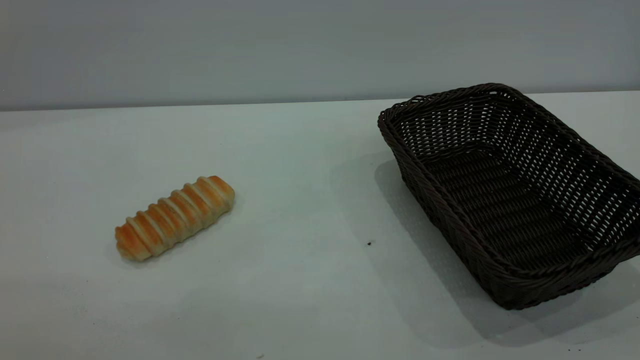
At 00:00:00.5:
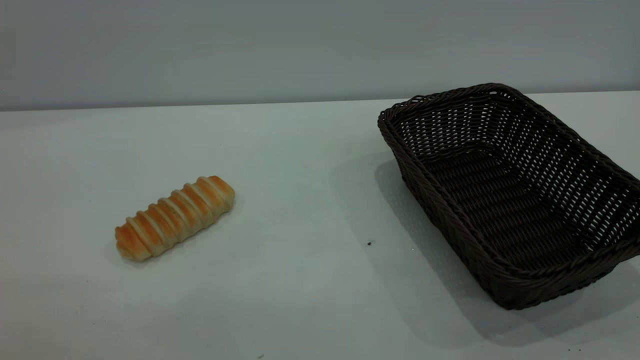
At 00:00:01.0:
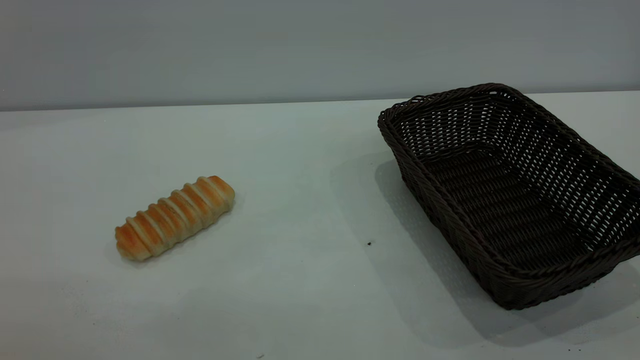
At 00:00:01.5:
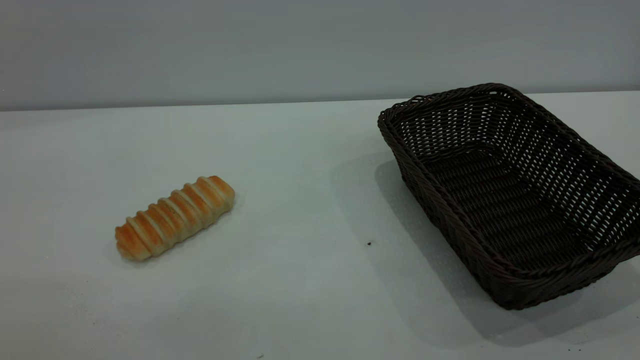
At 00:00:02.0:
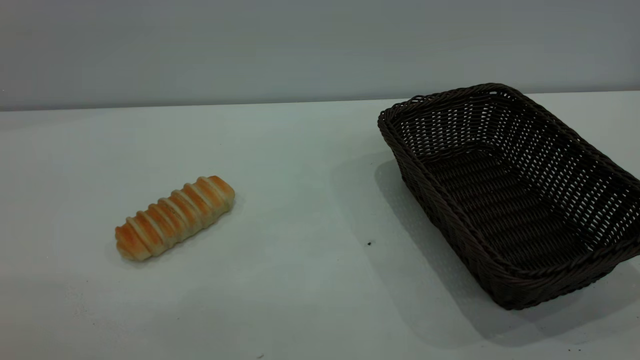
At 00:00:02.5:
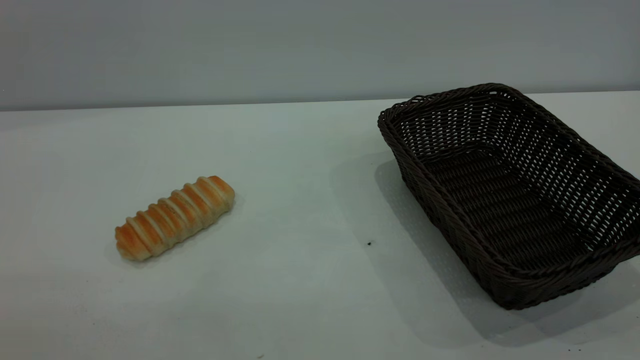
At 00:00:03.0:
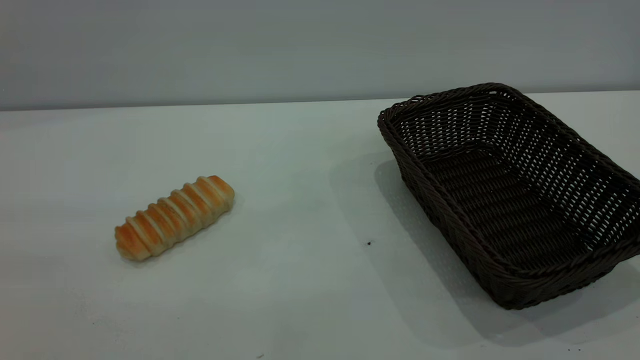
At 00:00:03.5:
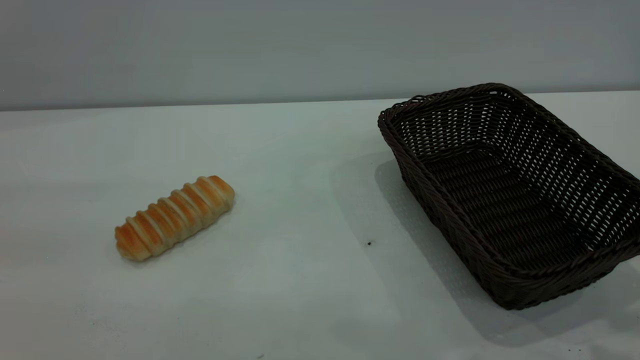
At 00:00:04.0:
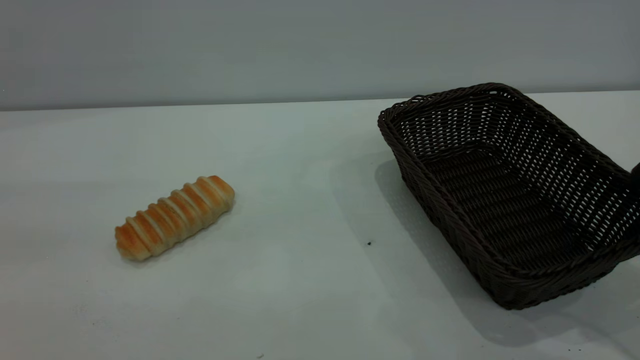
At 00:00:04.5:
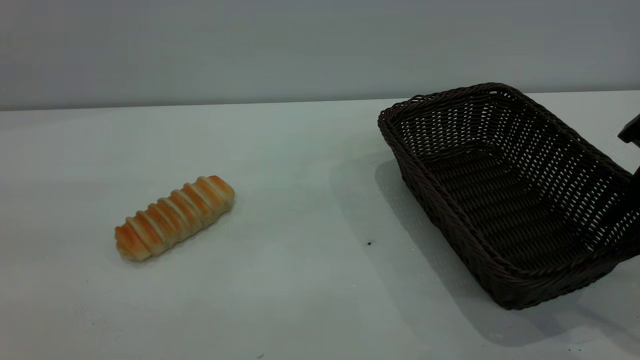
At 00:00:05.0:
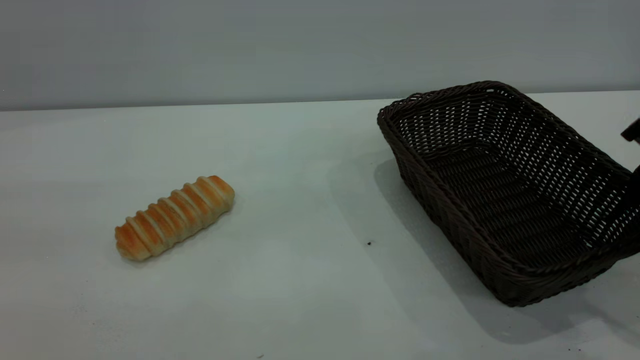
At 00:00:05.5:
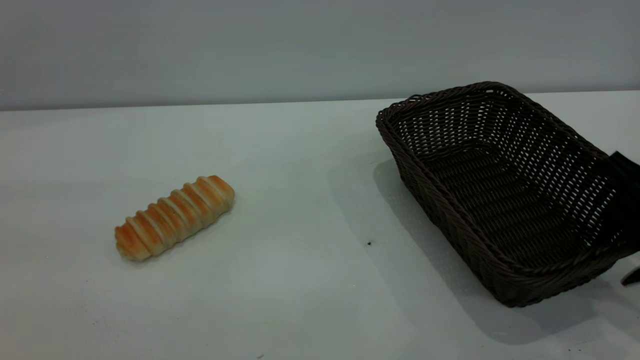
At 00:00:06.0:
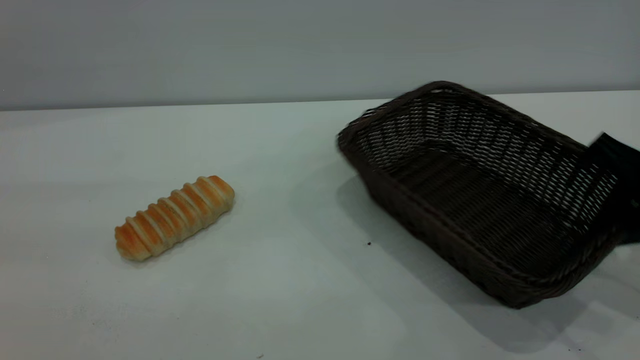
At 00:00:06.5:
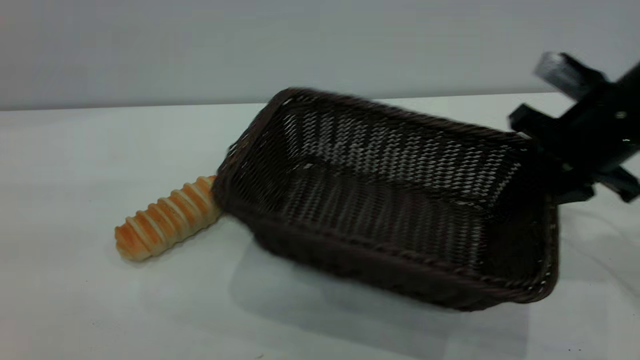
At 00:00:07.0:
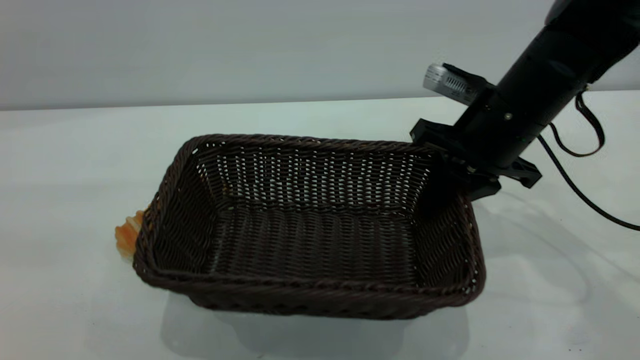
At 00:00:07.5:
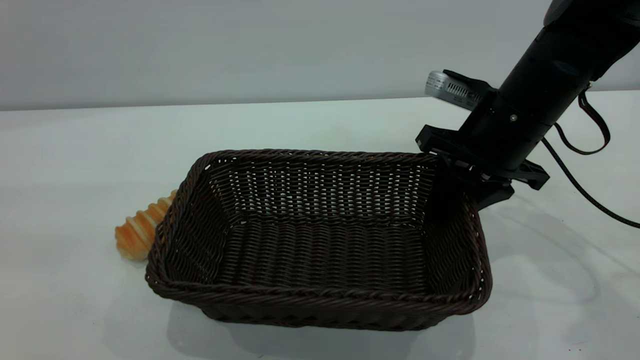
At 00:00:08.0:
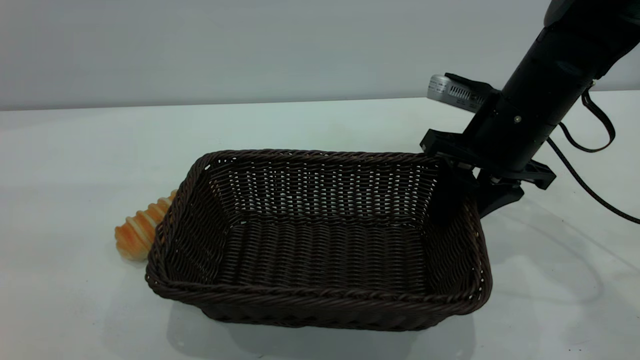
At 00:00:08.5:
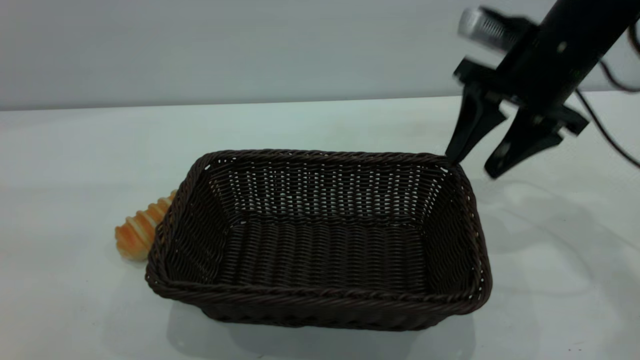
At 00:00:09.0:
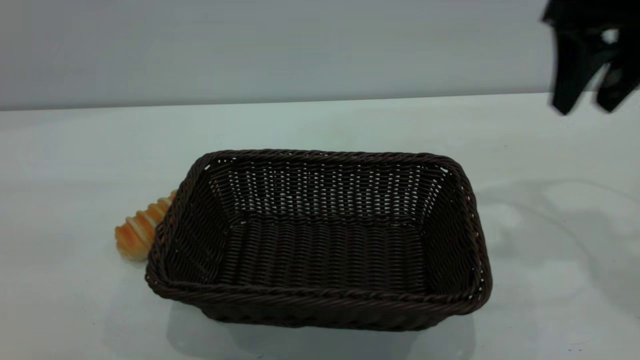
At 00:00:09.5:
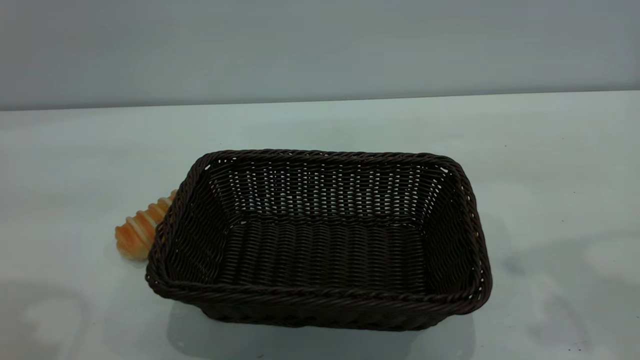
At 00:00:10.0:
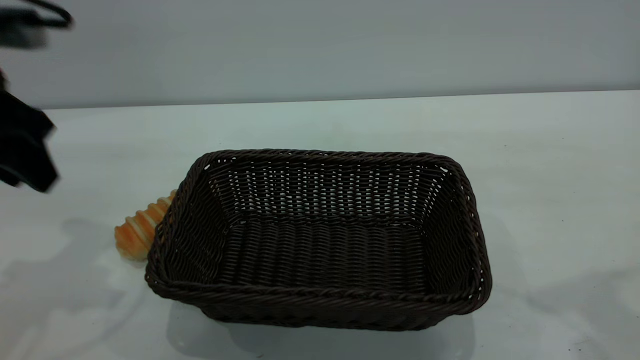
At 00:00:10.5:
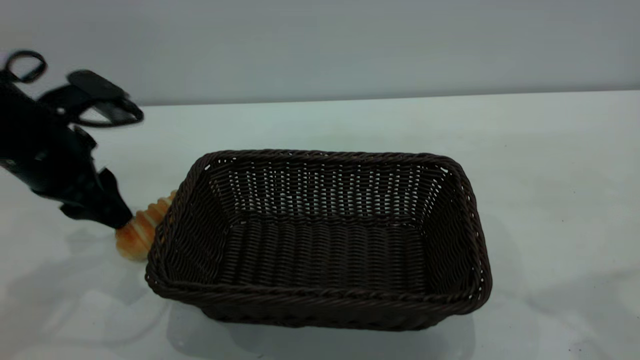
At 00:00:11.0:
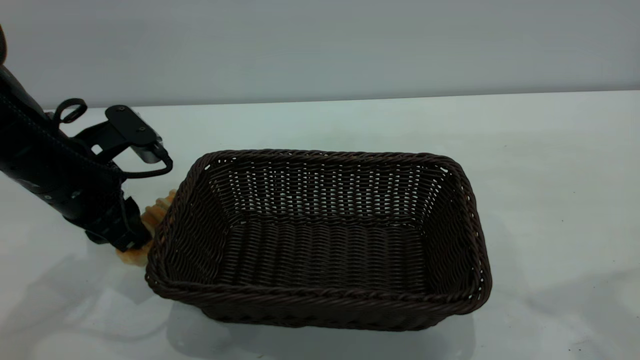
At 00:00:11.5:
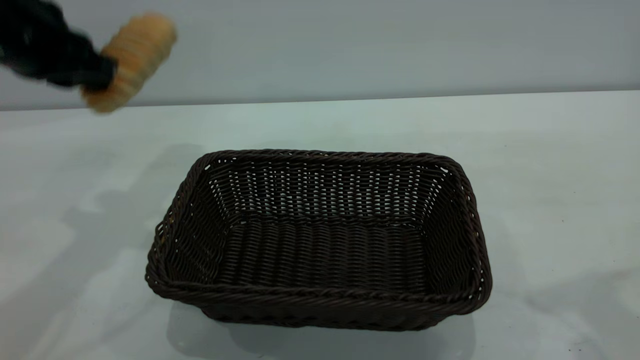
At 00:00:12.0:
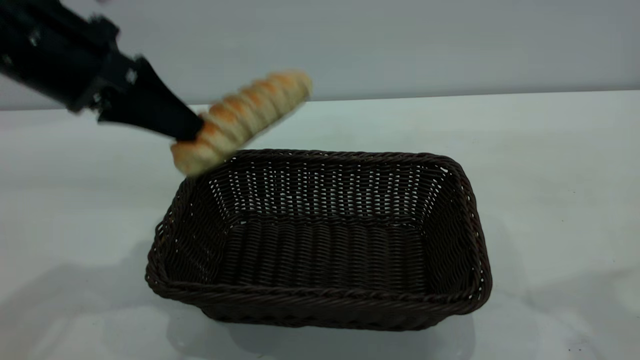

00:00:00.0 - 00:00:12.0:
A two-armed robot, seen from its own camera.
Task of the whole recording: One hand grasps the black basket and places it in the middle of the table, while the other hand picks up the long bread and puts it into the black basket.
Step, 00:00:00.0 - 00:00:08.5: Move the basket to the center of view.
00:00:00.0 - 00:00:02.0: Both grippers stay put.
00:00:04.0 - 00:00:06.0: The right gripper travels downward and forward by roughly 10 cm, and closes.
00:00:06.0 - 00:00:08.0: The right gripper is displaced to the left and forward by about 15 cm, and opens its fingers.
00:00:08.0 - 00:00:10.0: The left gripper heads forward and downward, covering roughly 20 cm. Meanwhile the right gripper goes some 25 cm upward and backward.
00:00:10.0 - 00:00:12.0: The left gripper travels to the right by about 5 cm, moves approximately 10 cm downward and comes back, and closes its fingers.

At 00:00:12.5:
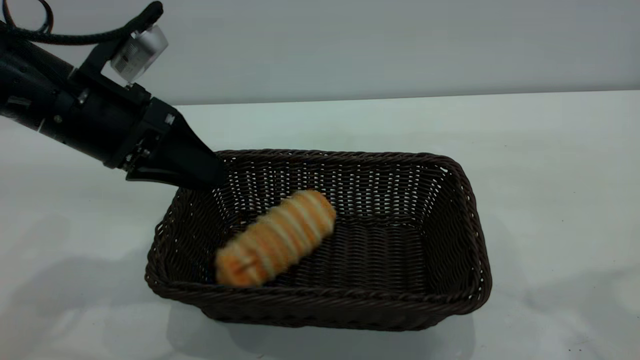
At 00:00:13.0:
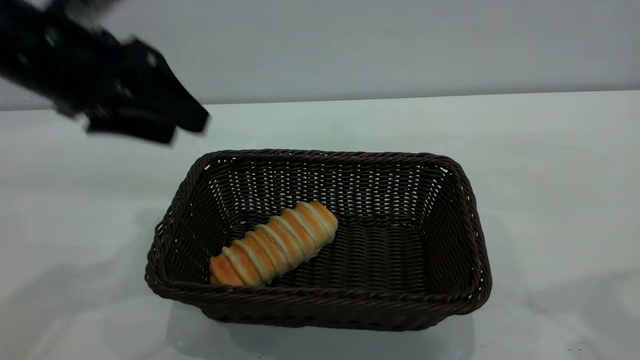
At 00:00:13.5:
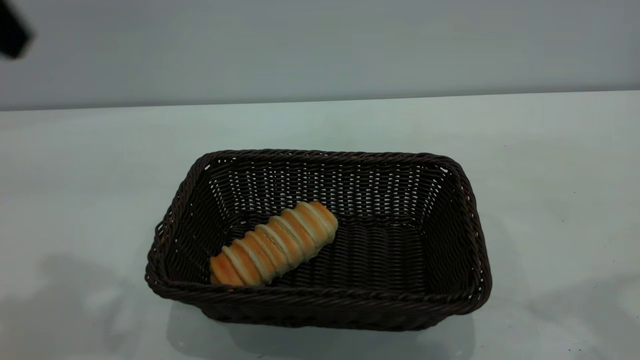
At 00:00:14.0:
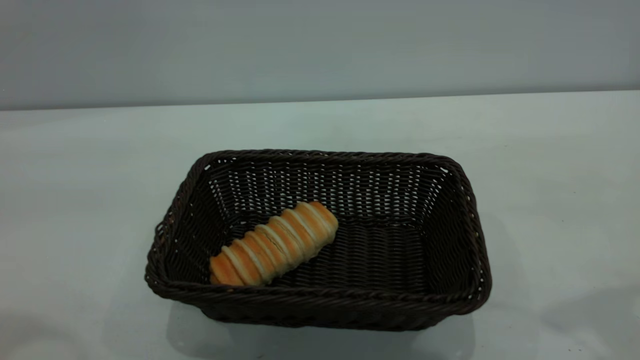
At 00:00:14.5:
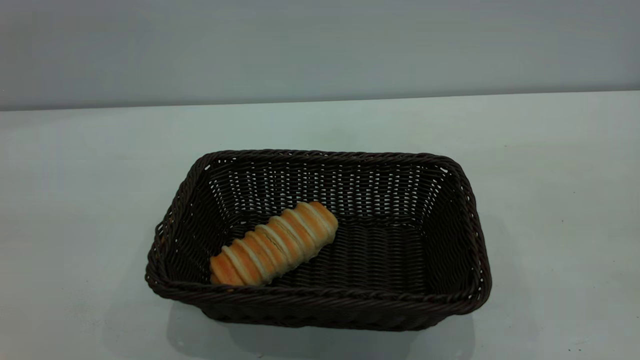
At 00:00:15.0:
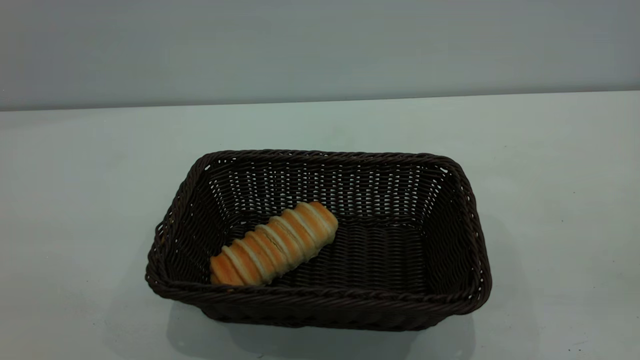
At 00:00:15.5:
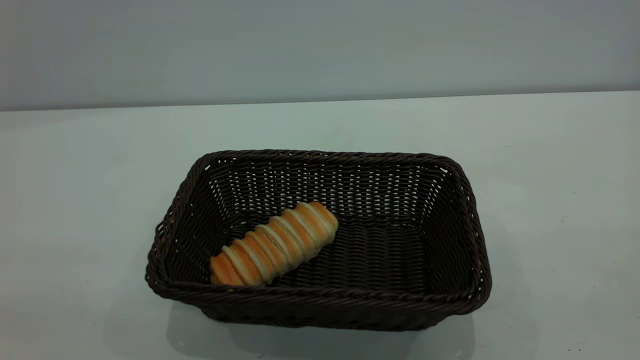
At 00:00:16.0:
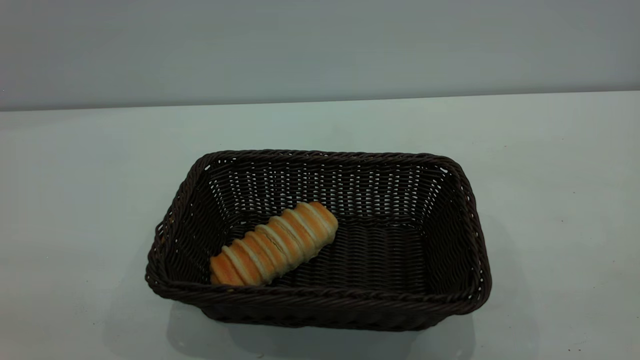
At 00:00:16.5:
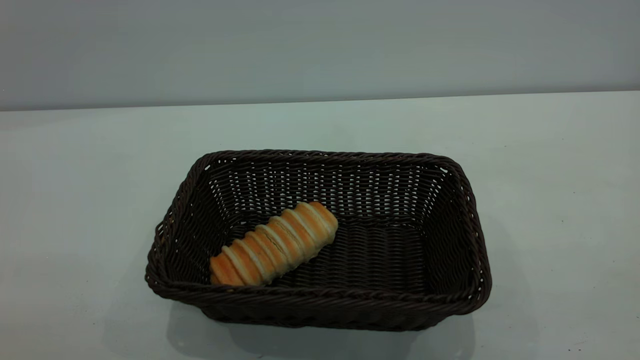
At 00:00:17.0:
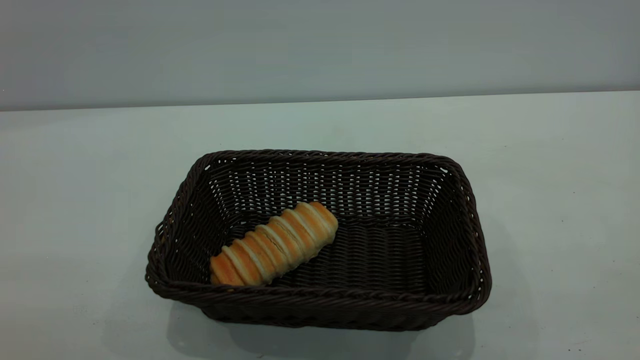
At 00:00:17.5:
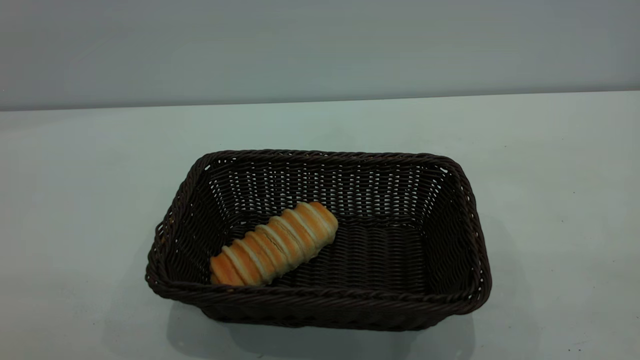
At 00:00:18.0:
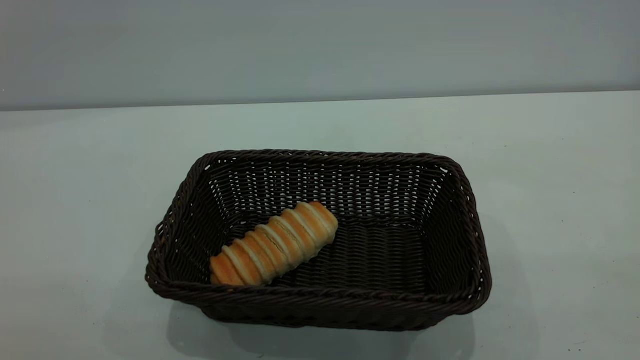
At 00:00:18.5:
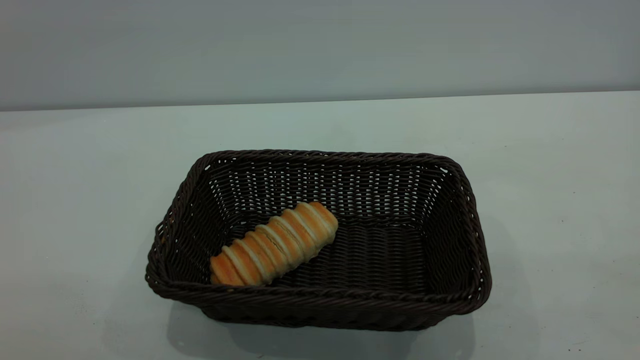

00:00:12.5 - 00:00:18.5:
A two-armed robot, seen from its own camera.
Task of the whole recording: One hand grasps the black basket and places it in the middle of the table, while the other hand picks up the long bread and puts it into the black basket.
00:00:12.5 - 00:00:14.5: The right gripper heads backward and upward, covering roughly 15 cm. Meanwhile the left gripper travels upward and backward by some 35 cm, and opens up.
